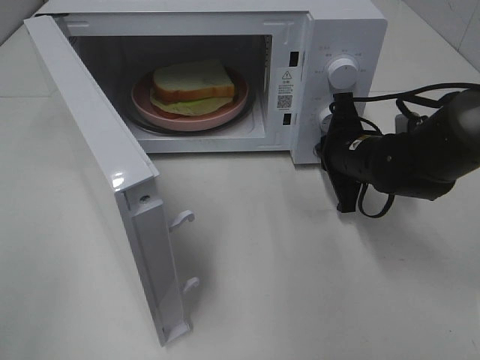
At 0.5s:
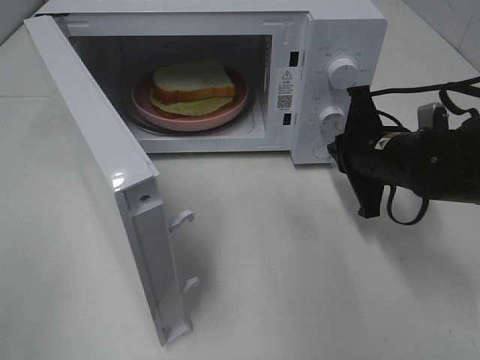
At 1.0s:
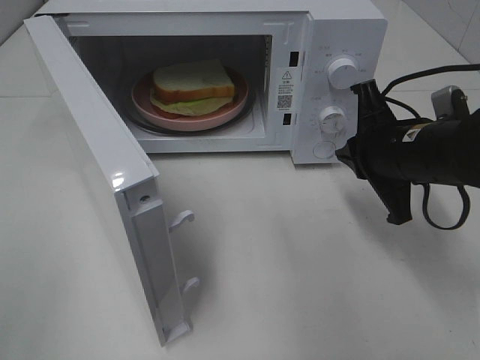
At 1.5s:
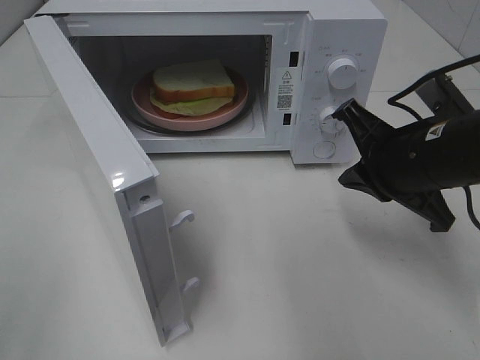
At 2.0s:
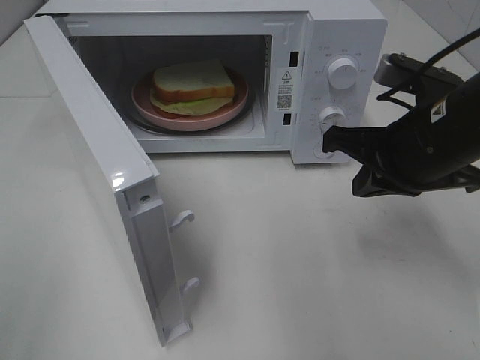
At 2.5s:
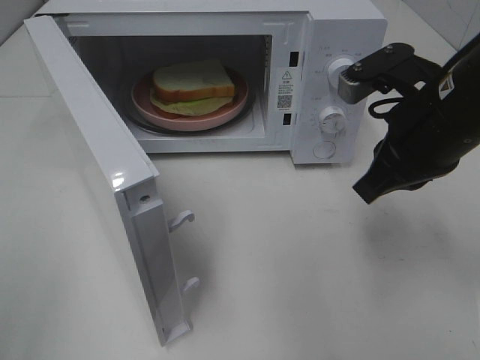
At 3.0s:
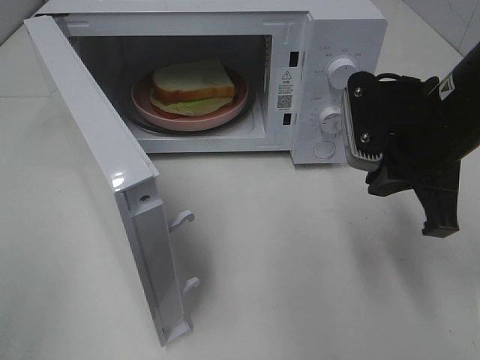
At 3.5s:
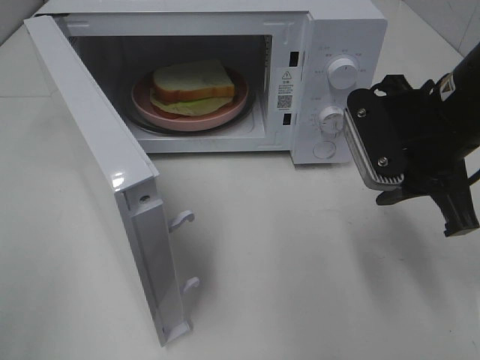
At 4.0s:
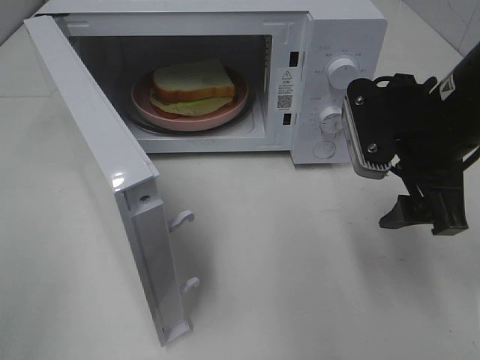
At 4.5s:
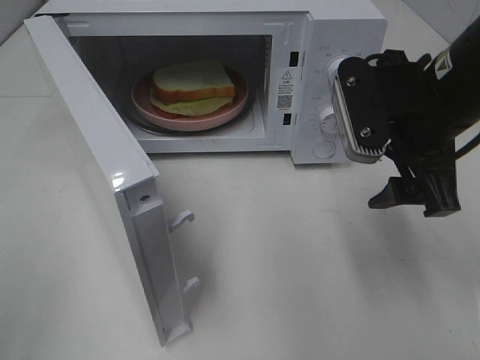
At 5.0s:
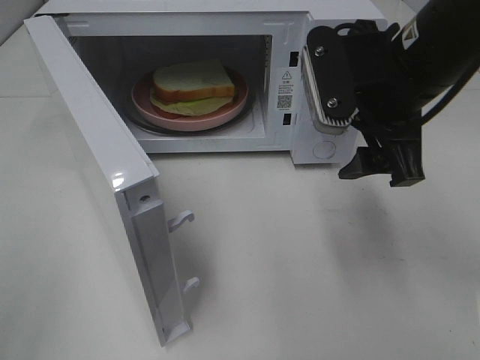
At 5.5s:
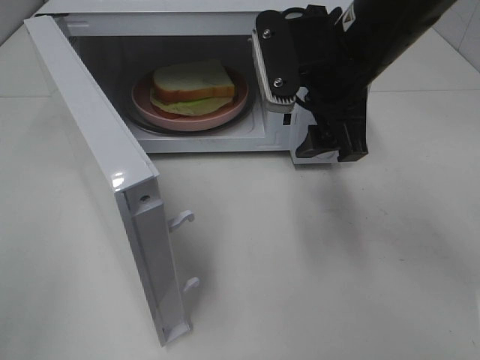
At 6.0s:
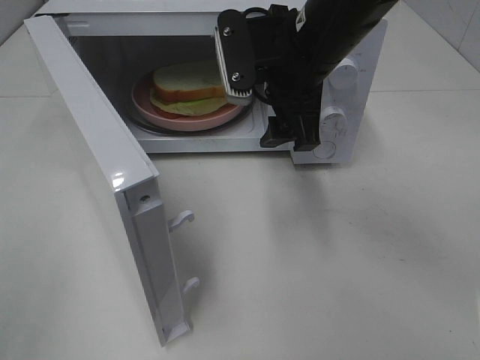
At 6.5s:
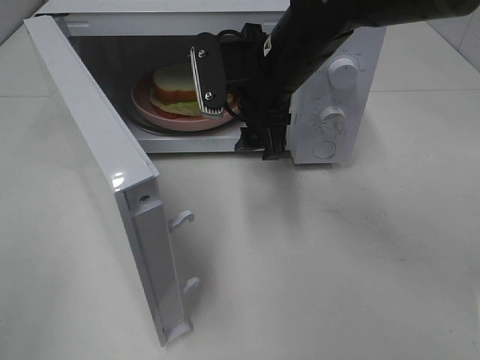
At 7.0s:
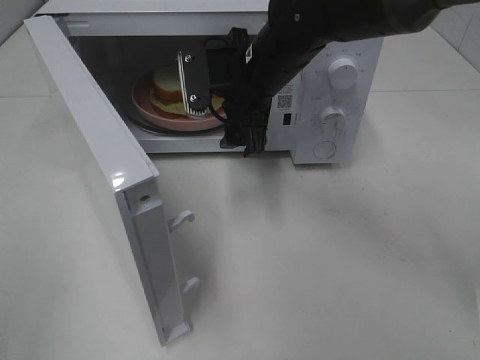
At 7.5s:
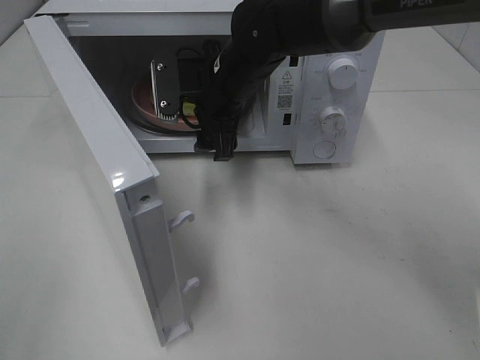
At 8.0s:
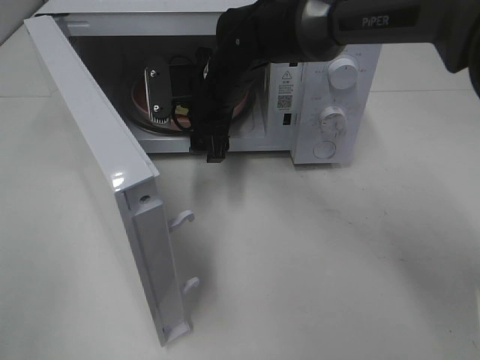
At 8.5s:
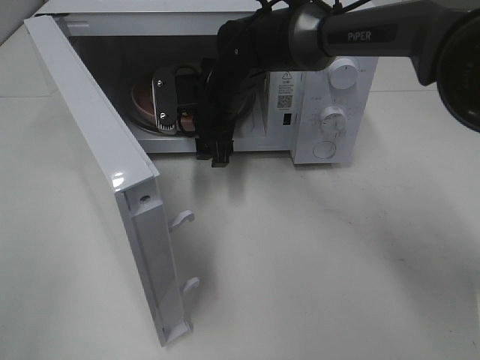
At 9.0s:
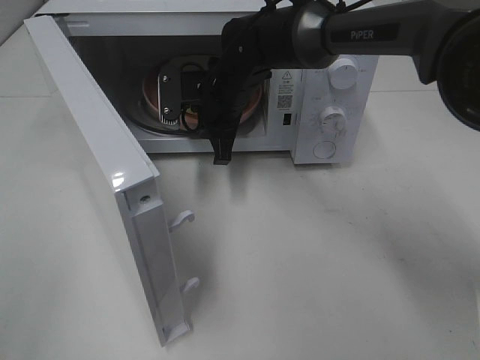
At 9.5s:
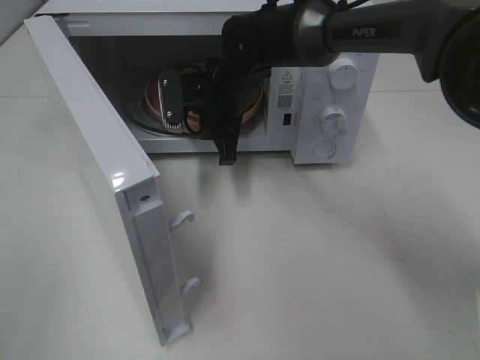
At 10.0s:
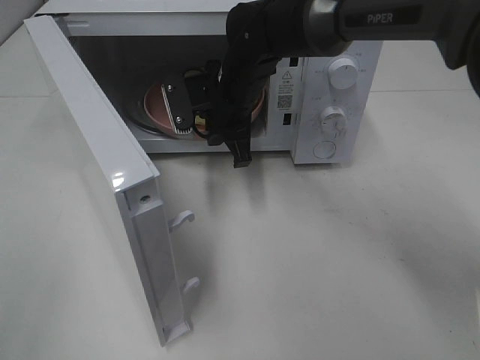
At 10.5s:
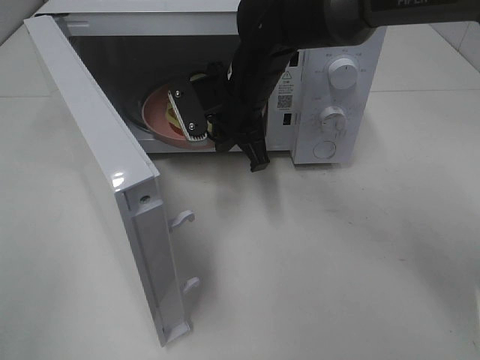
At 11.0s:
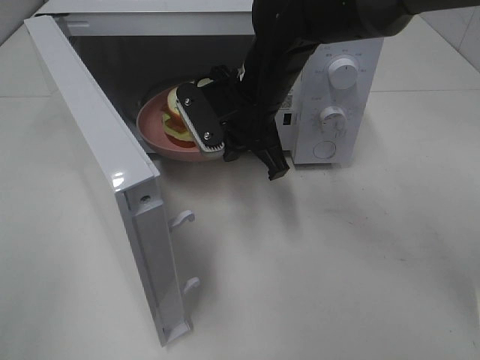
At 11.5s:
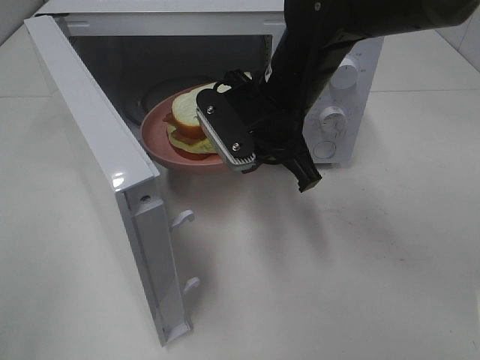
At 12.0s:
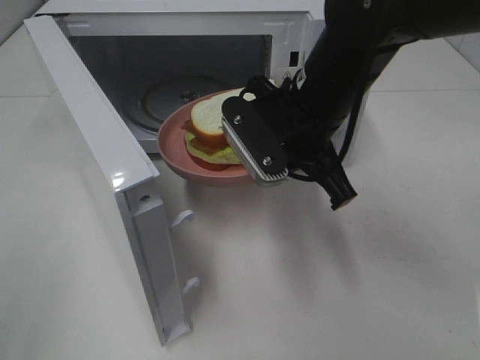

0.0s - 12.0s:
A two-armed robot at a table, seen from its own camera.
Task of the whole recording: Heat Sandwich.
Step, 0.5s - 9.0s: Right hand: grab the plate with the sandwich.
0.0s - 2.0s: The right gripper heads upward and backward, covering about 15 cm.
2.0s - 4.0s: The right gripper opens.
4.0s - 6.0s: The right gripper heads to the left and forward, covering some 15 cm.
6.0s - 8.0s: The right gripper heads downward, to the left and forward, covering approximately 15 cm.
8.0s - 10.0s: The right gripper closes.
10.0s - 12.0s: The right gripper heads backward, to the right and upward, covering some 15 cm.

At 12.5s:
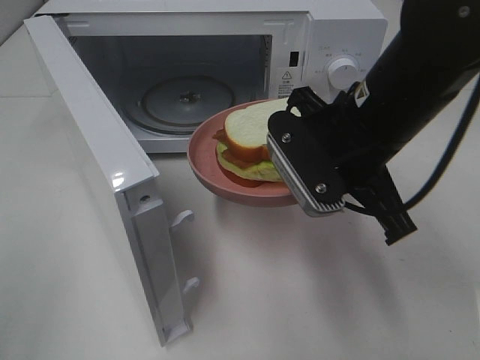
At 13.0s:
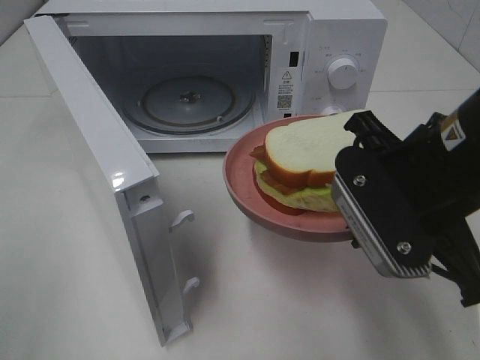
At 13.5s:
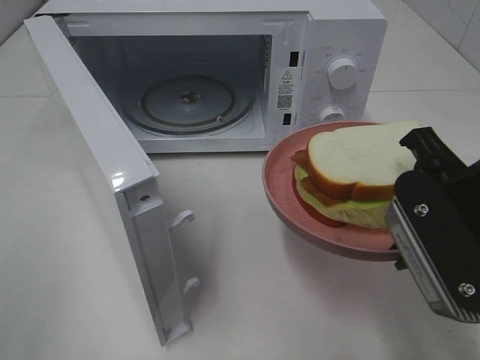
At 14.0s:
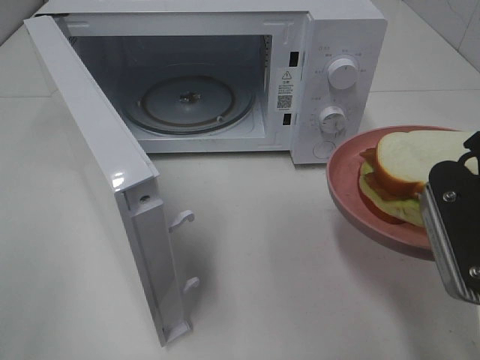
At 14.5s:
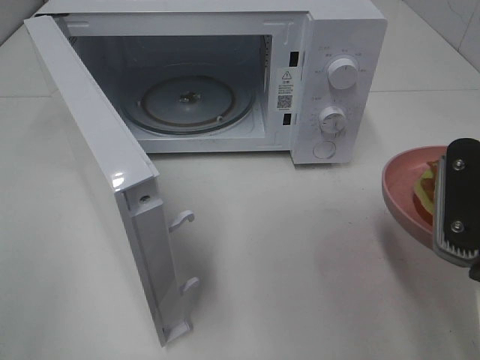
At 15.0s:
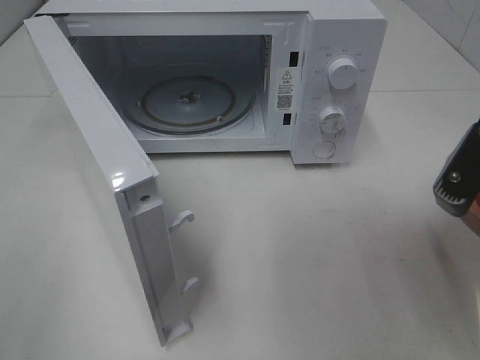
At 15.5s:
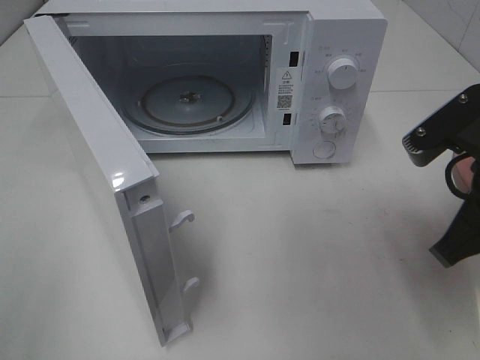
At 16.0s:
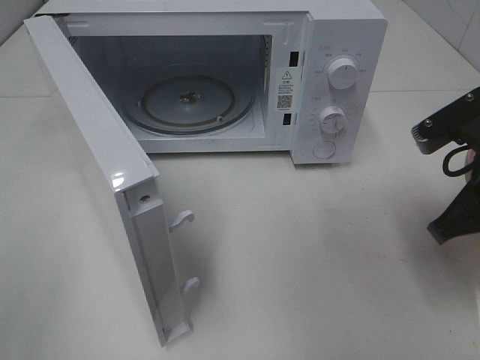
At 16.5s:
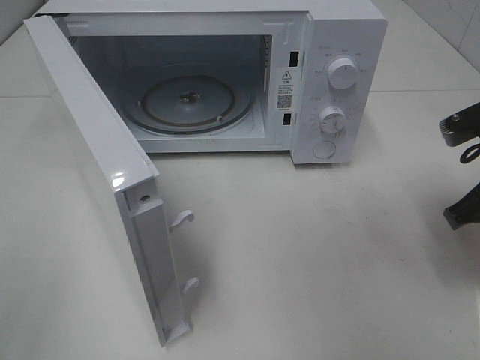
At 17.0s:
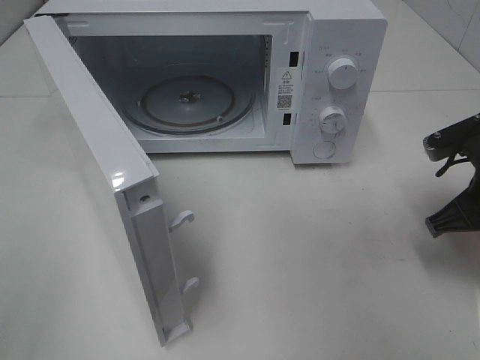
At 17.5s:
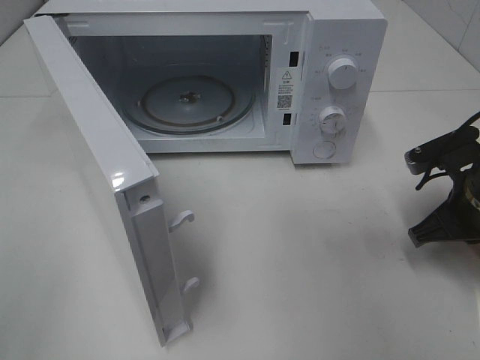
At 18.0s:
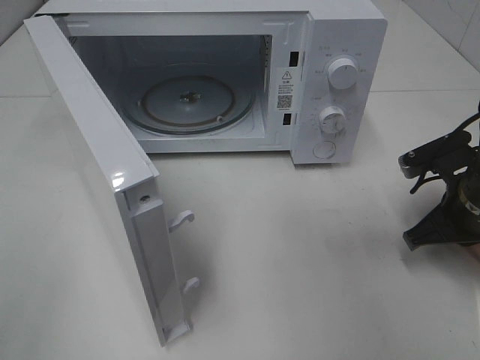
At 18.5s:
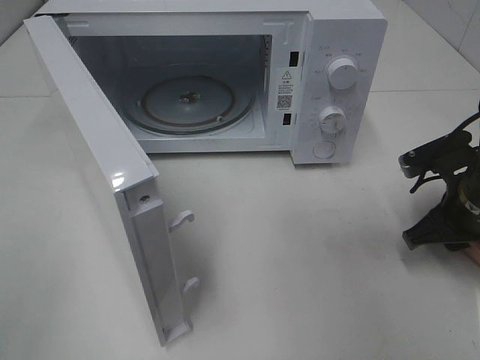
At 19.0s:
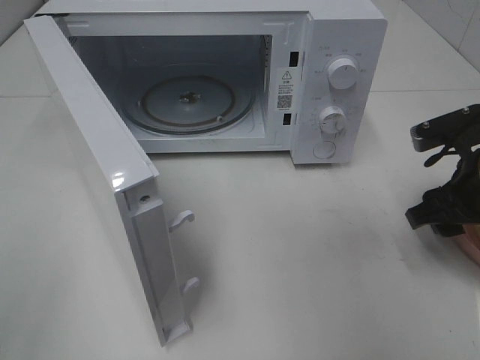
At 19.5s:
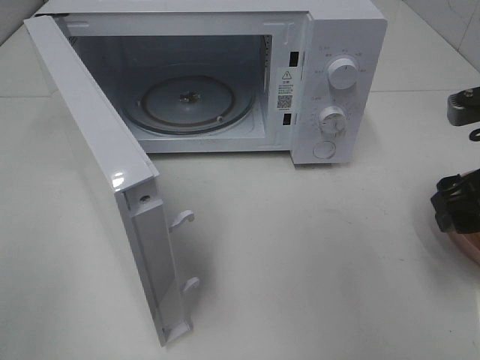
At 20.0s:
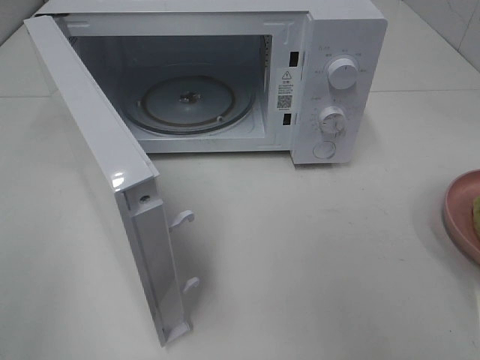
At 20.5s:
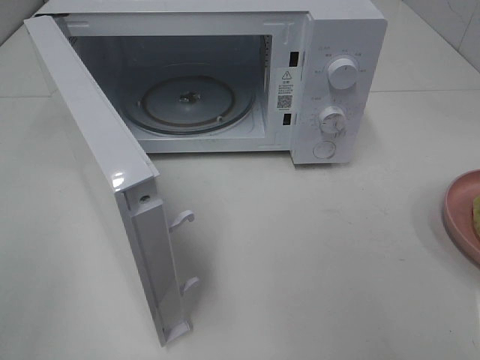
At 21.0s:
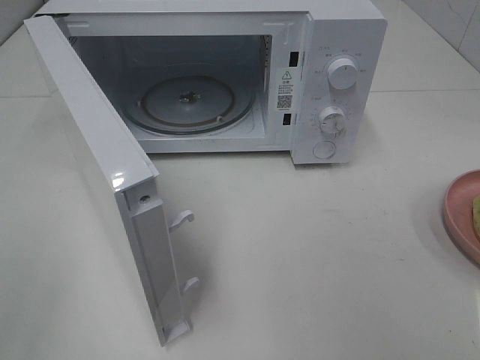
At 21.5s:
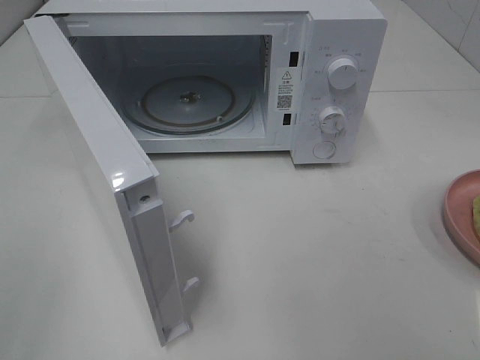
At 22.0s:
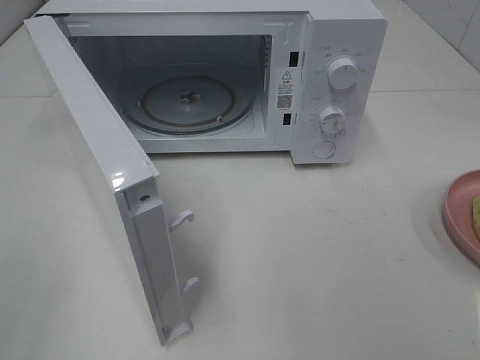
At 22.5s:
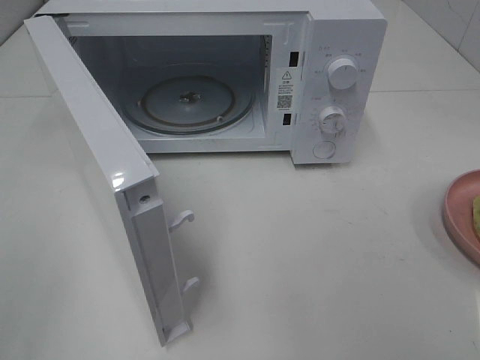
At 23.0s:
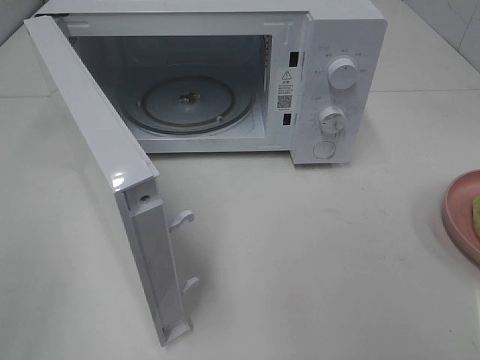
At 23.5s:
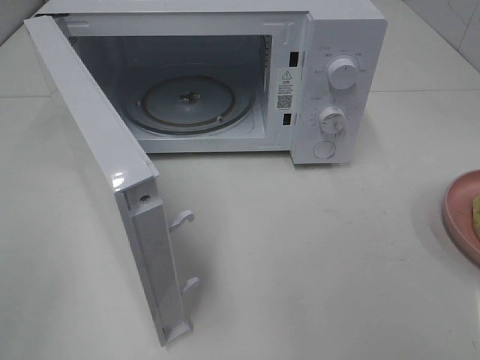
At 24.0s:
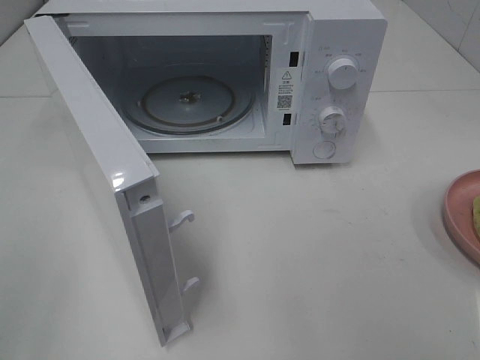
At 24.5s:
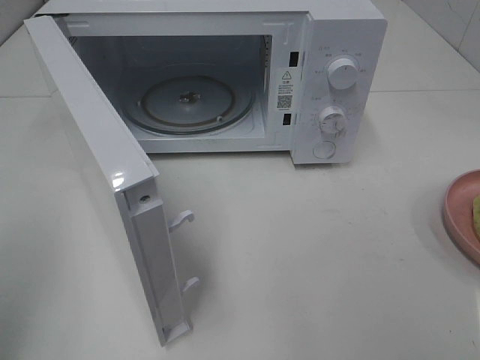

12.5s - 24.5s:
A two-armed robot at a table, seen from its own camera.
Task of the whole recording: Heat Sandwich.
Step, 12.5s - 18.5s: Right hand: place the plate on the table.
12.5s - 14.5s: The right gripper moves backward and to the right, roughly 15 cm.
14.5s - 16.5s: The right gripper shifts about 10 cm forward, downward and to the right.
16.5s - 18.5s: The right gripper moves downward, some 5 cm, and opens its fingers.
18.5s - 20.5s: The right gripper travels upward and backward by about 25 cm, and opens up.

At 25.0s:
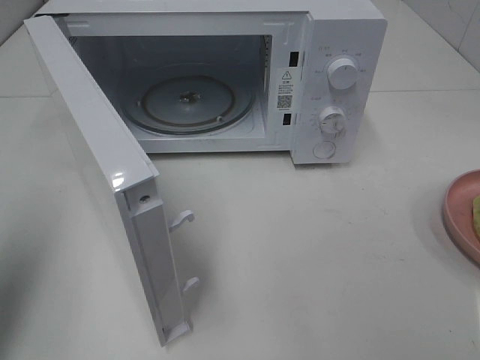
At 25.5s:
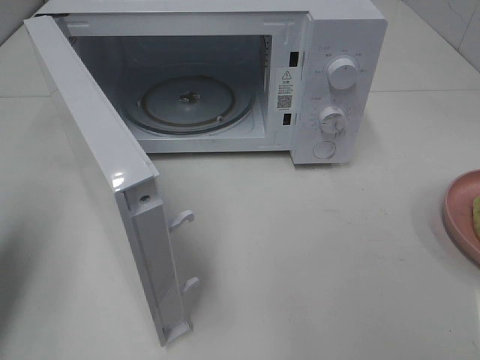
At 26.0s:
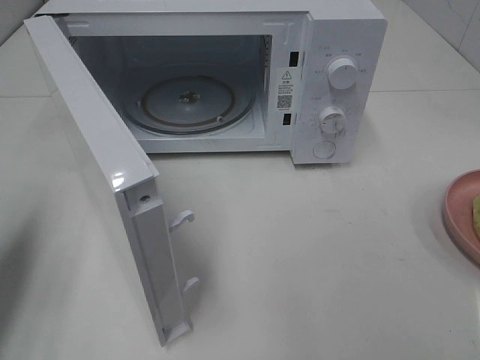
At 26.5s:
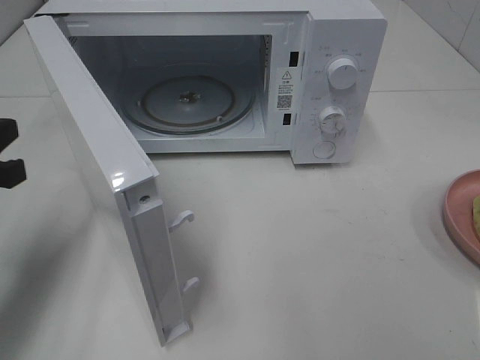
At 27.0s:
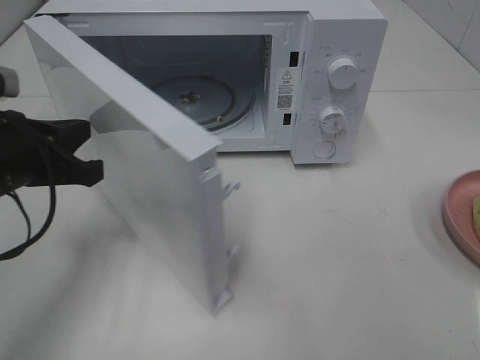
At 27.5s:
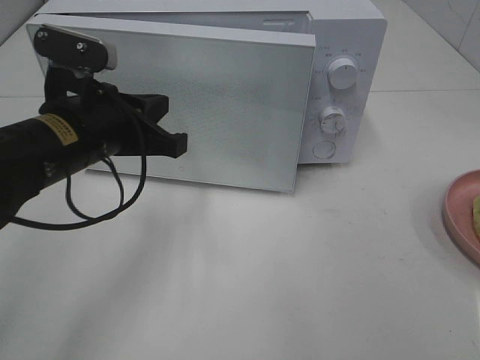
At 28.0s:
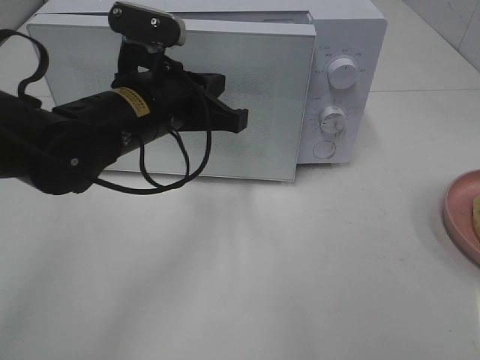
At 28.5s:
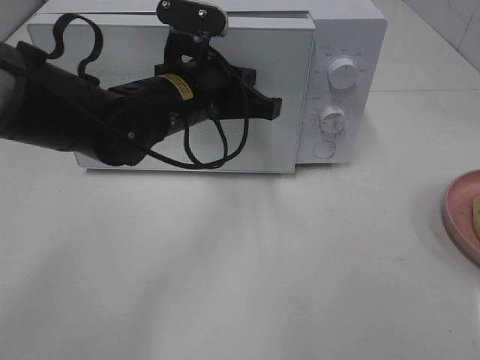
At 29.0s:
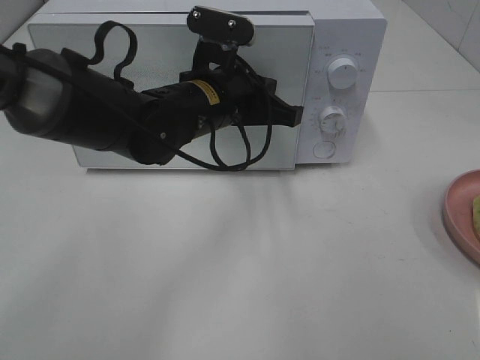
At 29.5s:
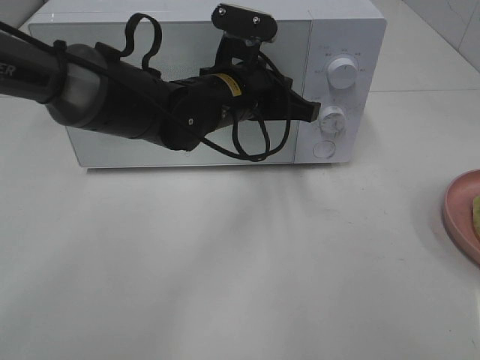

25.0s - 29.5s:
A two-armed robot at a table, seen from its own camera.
Task of the whole recording: Heat Sandwich.
25.0s - 27.0s: The left gripper is displaced downward, to the right and forward by approximately 20 cm.
27.0s - 29.5s: The left gripper is displaced to the right and forward by some 25 cm.
